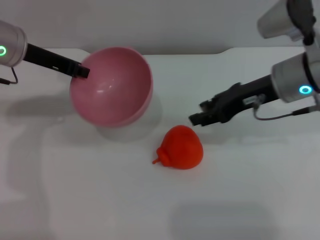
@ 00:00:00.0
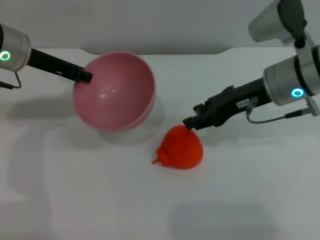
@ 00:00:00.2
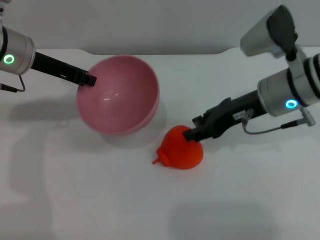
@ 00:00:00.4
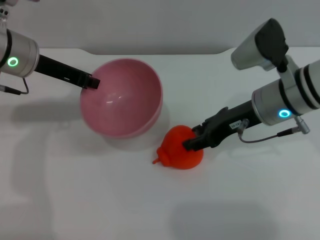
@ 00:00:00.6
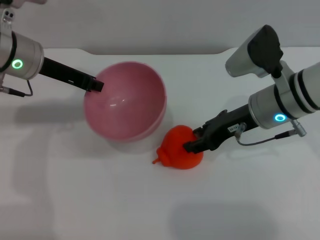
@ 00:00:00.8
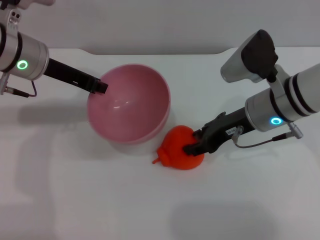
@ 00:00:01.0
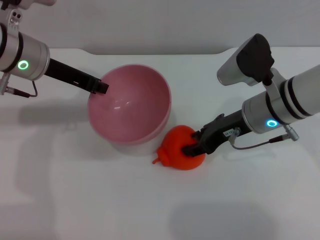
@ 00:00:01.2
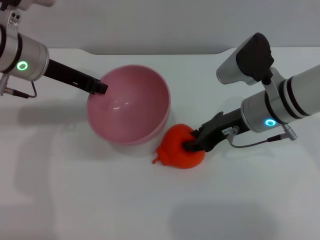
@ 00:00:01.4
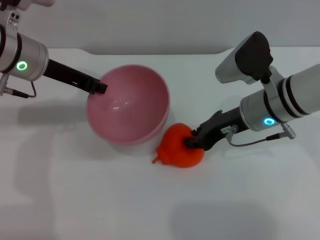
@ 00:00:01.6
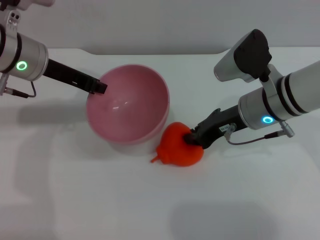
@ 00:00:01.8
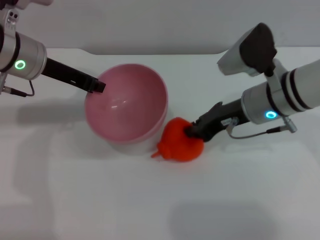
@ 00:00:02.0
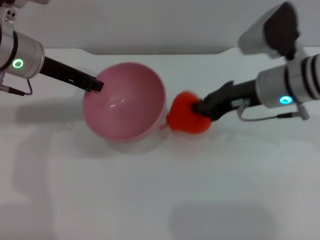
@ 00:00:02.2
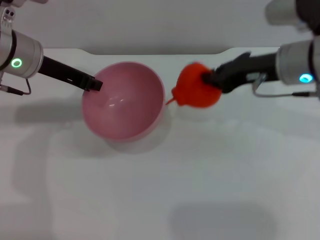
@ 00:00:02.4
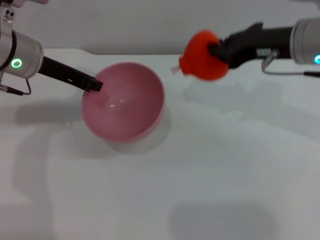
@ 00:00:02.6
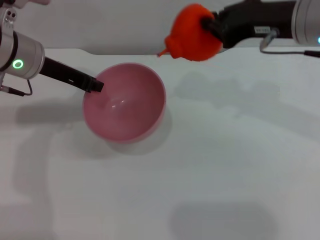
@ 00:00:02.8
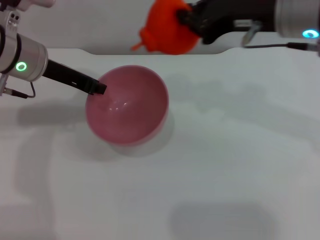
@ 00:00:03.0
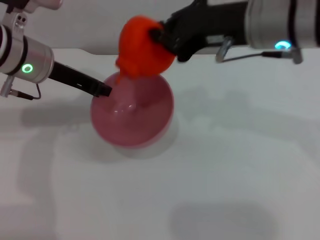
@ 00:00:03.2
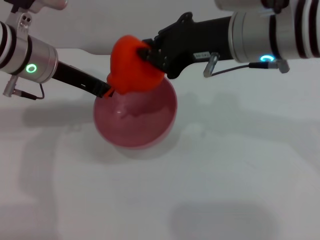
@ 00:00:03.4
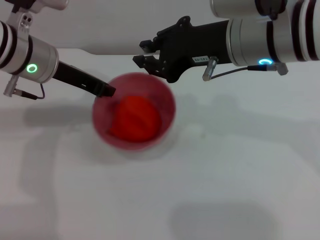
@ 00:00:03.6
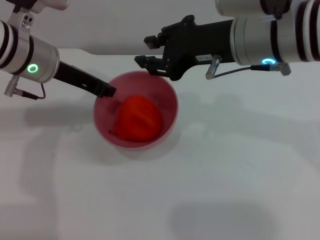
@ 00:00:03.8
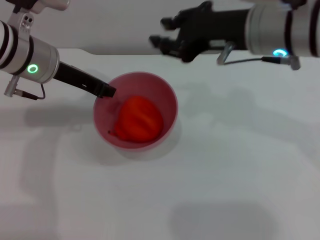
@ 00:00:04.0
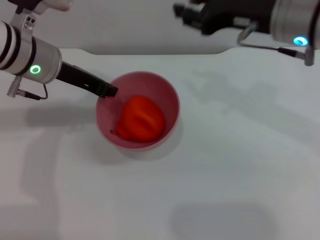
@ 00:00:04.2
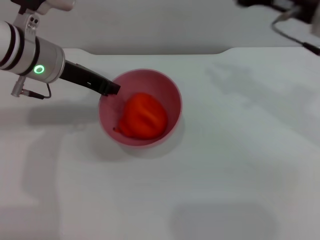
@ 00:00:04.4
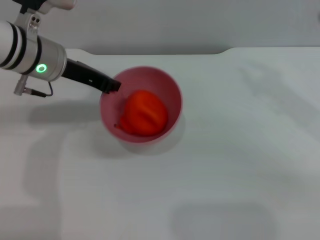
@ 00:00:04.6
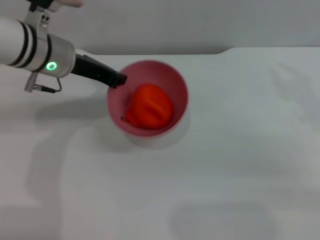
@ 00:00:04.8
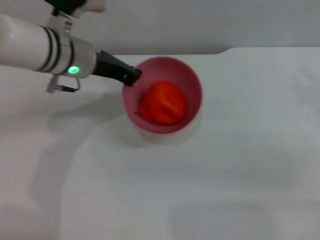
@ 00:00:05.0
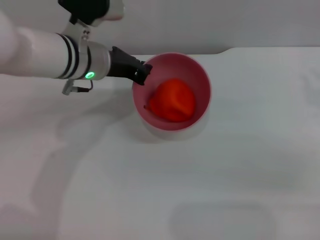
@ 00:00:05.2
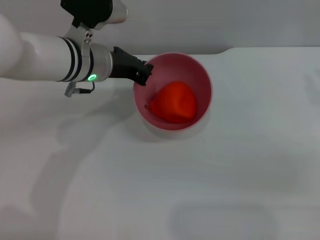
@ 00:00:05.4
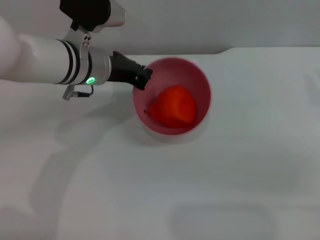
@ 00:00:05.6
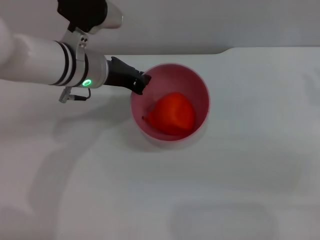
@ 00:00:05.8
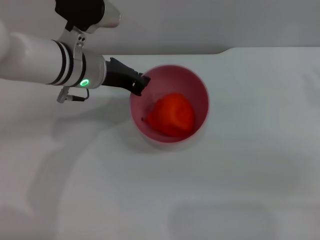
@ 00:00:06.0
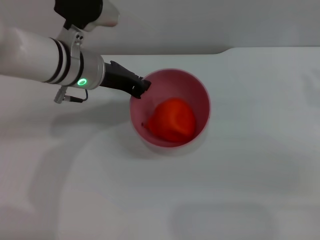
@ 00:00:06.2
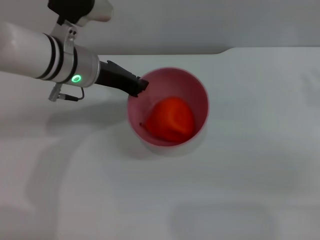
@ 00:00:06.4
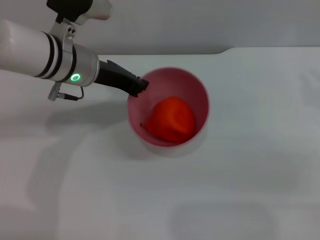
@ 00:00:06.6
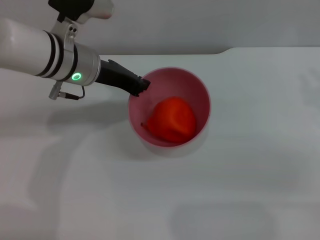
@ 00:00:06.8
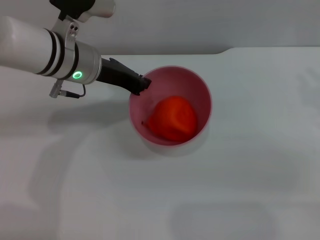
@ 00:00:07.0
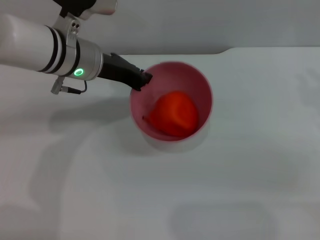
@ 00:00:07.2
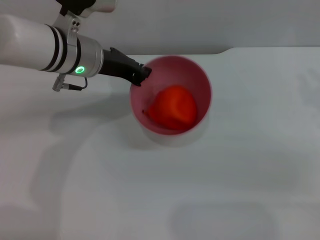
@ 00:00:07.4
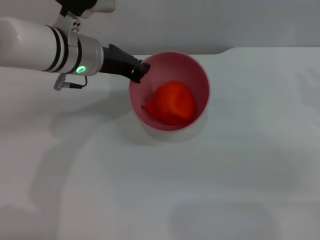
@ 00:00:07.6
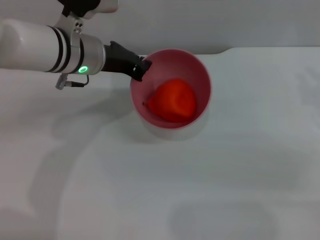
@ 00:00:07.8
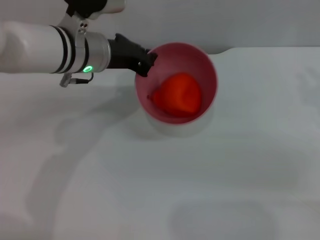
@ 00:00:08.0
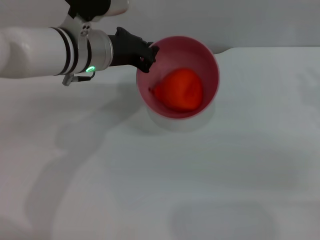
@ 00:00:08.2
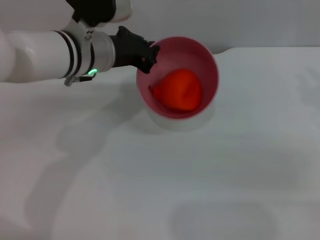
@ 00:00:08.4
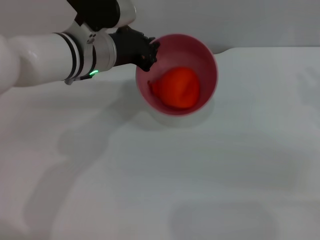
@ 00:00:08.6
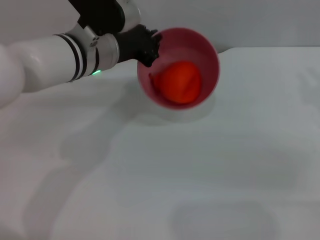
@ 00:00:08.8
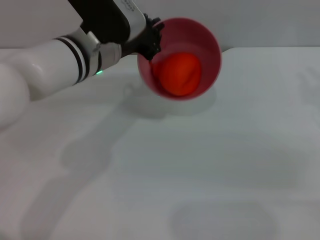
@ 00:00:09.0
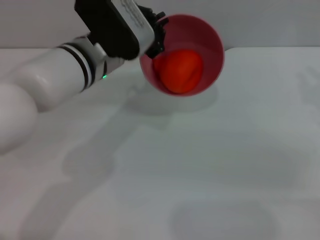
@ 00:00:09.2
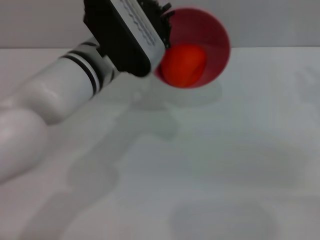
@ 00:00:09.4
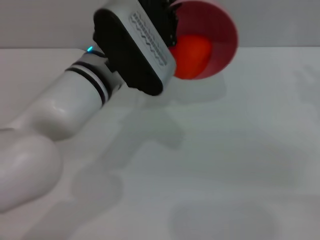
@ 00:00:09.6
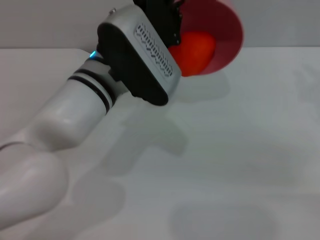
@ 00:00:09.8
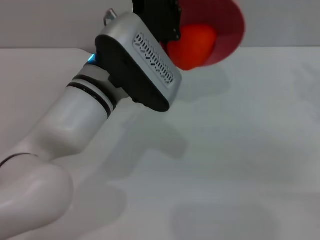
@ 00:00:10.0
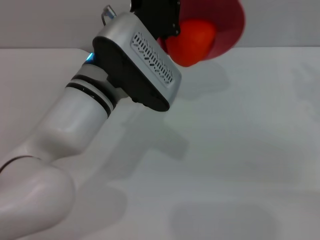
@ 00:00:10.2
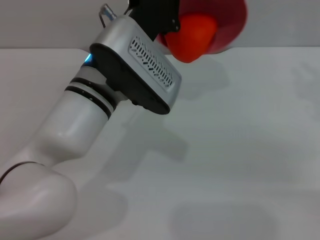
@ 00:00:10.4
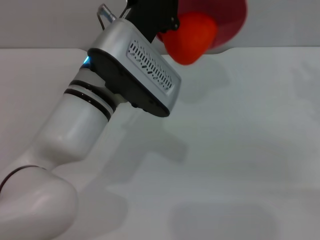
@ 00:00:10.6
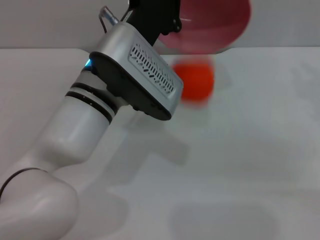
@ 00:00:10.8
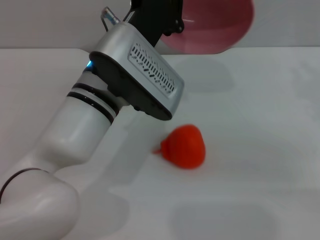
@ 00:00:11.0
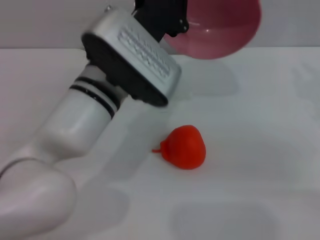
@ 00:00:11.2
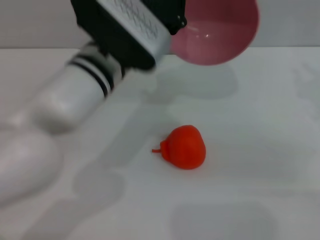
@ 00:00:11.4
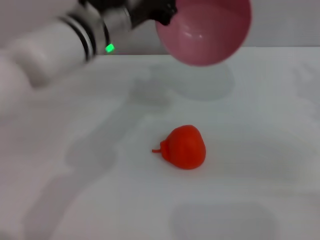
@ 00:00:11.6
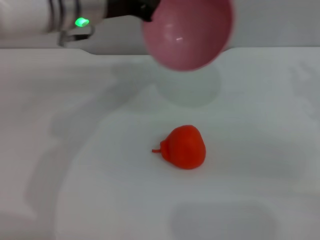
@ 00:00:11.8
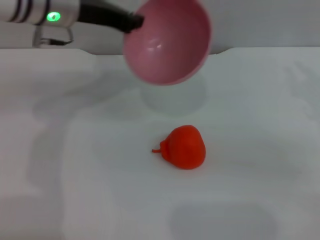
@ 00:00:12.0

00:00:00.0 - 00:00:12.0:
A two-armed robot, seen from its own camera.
Task of the whole recording: put the orange into the pink bowl and pour it out repeatedly.
Step, 00:00:00.0 - 00:00:02.4: Pick up the orange with the right gripper.
Step, 00:00:02.6 - 00:00:04.0: Place the orange into the bowl.
Step, 00:00:04.2 - 00:00:10.8: Pour the orange out of the bowl.
00:00:00.0 - 00:00:01.6: The right gripper moves downward, roughly 5 cm.
00:00:01.6 - 00:00:03.0: The right gripper travels upward by some 15 cm, and closes its fingers.
00:00:03.0 - 00:00:04.4: The right gripper shifts approximately 5 cm to the right, and opens its fingers.
00:00:04.4 - 00:00:06.0: The right gripper is displaced to the right, downward and backward by roughly 15 cm. The left gripper travels to the right by roughly 5 cm.
00:00:06.0 - 00:00:07.6: The grippers make only small movements.
00:00:09.0 - 00:00:10.4: The left gripper moves backward, some 5 cm.
00:00:10.4 - 00:00:12.0: The left gripper travels forward, to the left and upward by about 15 cm.

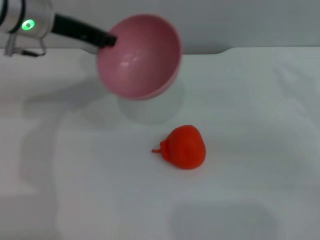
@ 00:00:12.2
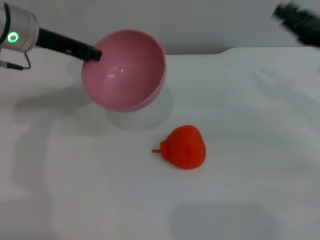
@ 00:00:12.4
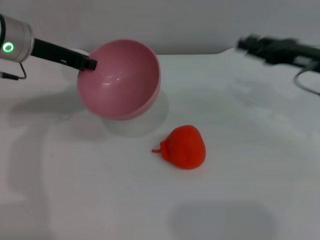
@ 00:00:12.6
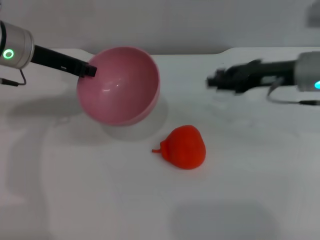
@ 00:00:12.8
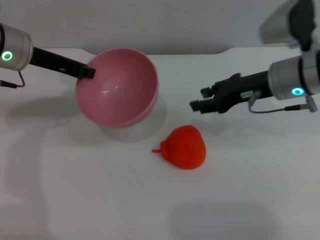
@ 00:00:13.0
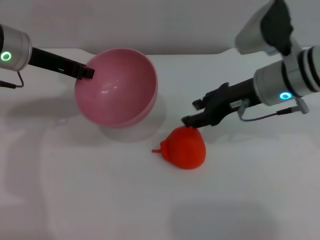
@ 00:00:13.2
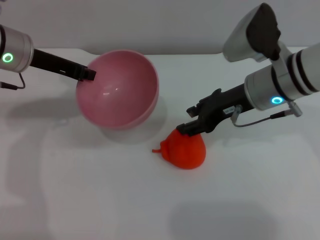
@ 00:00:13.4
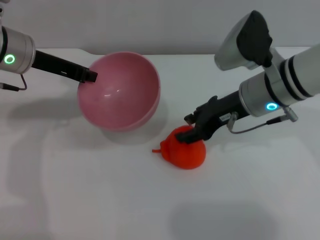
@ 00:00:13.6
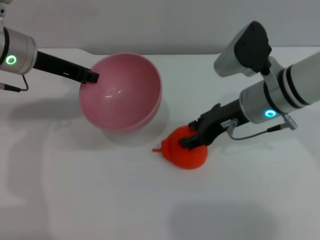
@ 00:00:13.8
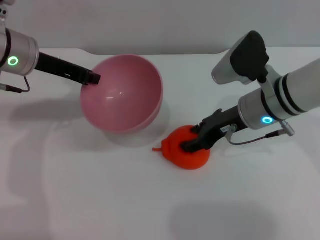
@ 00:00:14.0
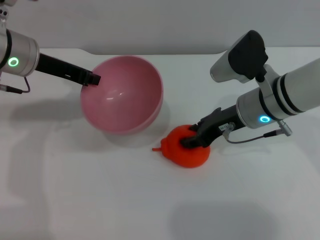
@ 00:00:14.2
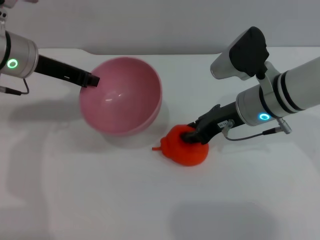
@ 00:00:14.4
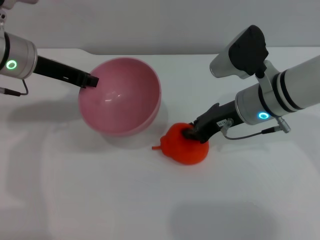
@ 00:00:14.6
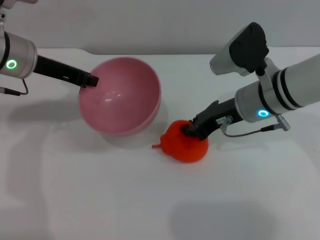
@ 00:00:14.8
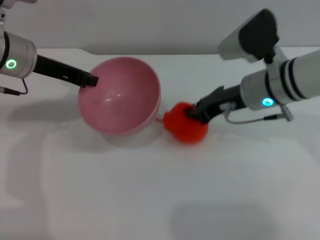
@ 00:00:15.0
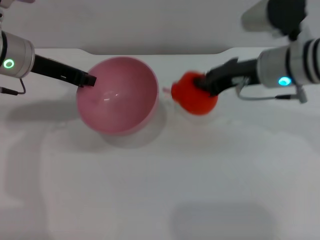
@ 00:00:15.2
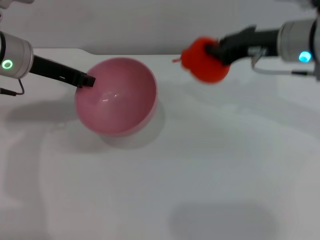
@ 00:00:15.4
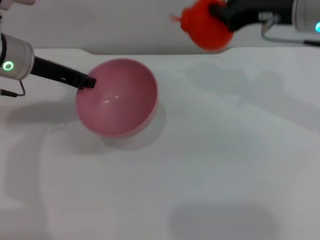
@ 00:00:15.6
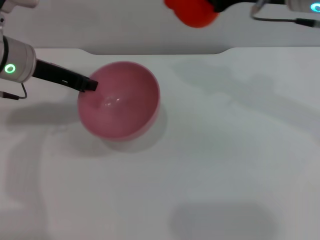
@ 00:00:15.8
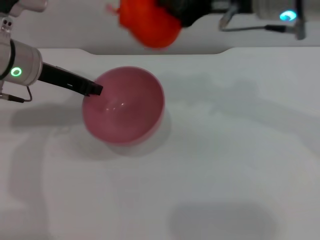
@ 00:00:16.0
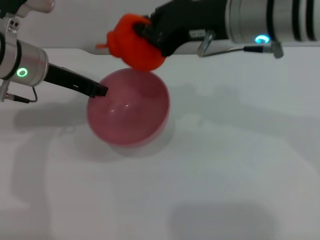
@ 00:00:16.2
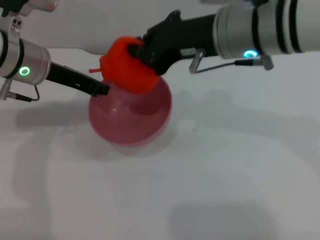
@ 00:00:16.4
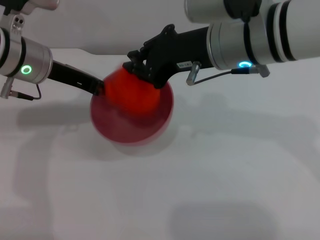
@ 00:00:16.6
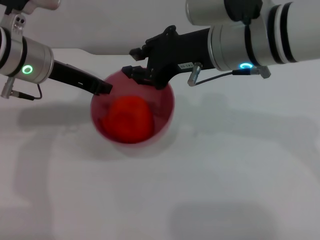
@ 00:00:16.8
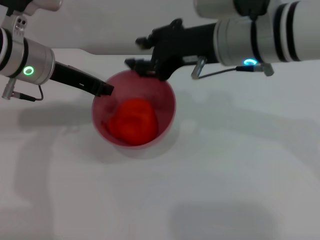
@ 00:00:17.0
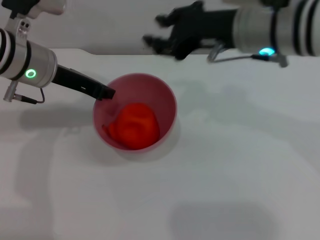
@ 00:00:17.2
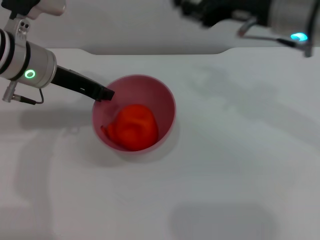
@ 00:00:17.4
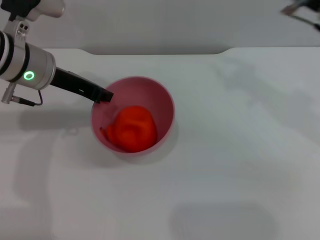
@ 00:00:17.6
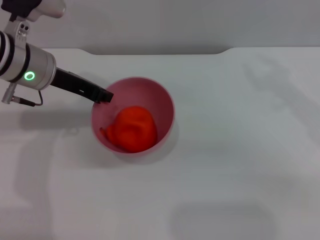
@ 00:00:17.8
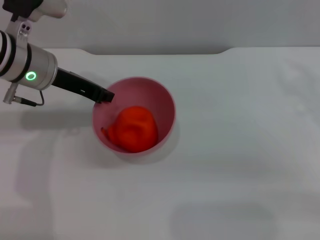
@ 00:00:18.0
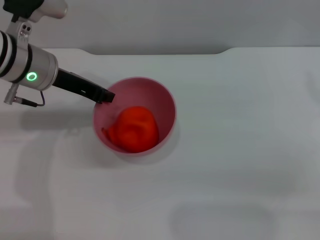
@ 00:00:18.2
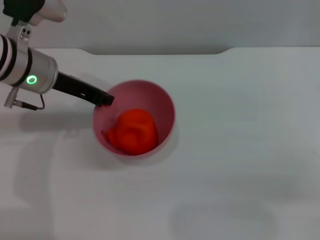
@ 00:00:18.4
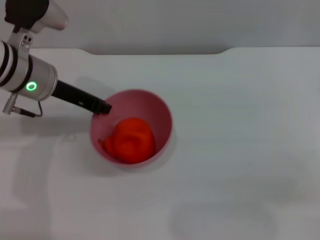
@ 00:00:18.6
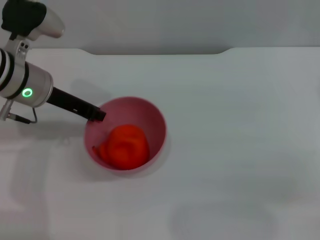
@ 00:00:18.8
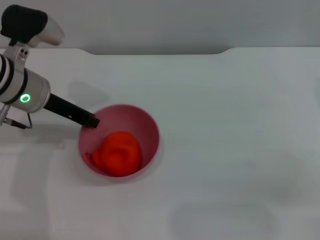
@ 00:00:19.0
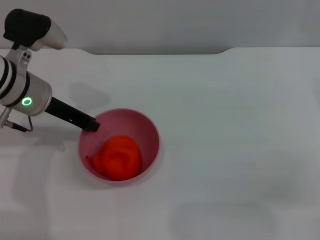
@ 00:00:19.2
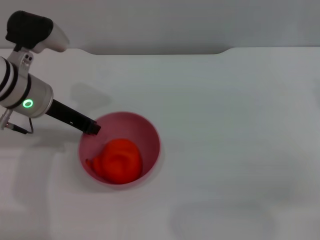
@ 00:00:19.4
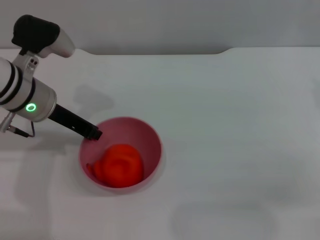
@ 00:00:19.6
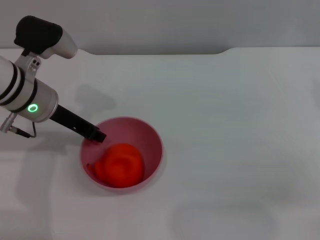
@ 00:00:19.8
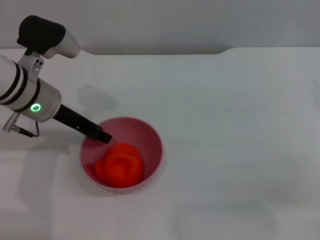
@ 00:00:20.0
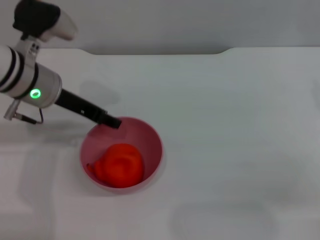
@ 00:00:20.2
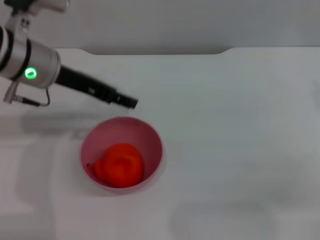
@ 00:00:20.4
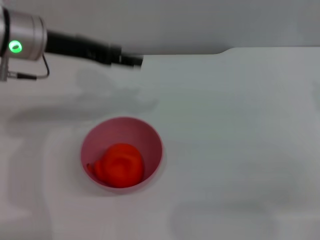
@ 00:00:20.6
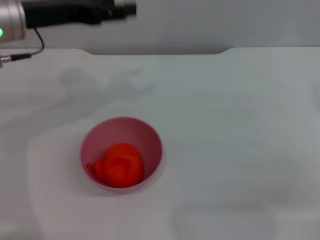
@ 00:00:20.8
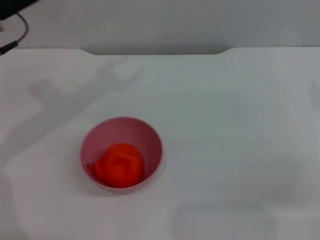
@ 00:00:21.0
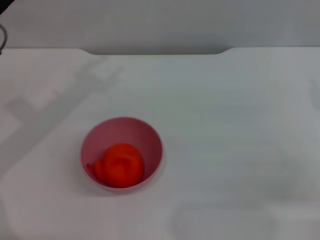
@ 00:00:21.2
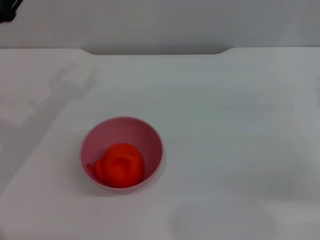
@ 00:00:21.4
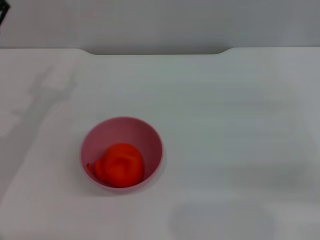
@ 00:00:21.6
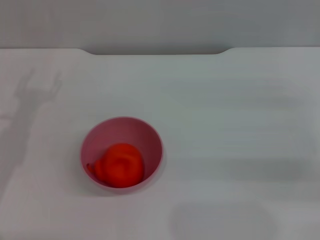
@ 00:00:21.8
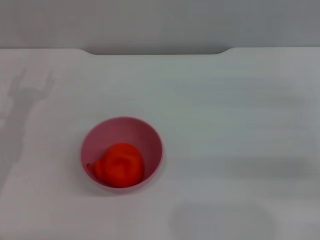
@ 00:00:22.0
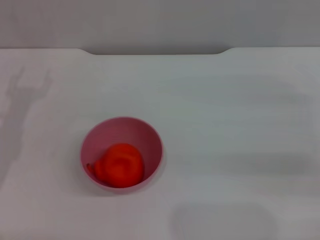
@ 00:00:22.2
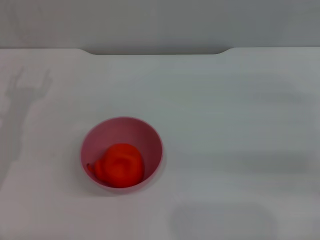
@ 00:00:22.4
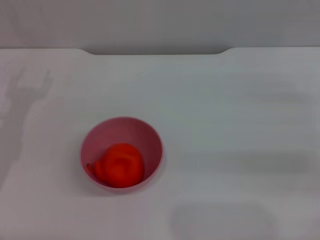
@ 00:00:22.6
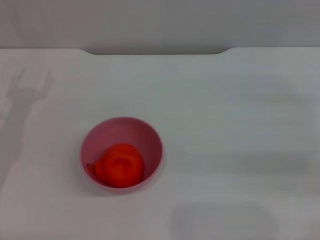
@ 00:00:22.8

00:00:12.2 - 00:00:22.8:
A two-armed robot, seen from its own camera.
Task of the whole recording: put the orange into the pink bowl and pour it out repeatedly.
Step, 00:00:12.2 - 00:00:15.4: Pick up the orange with the right gripper.
Step, 00:00:15.6 - 00:00:17.4: Place the orange into the bowl.
Step, 00:00:17.6 - 00:00:20.4: Place the bowl on the table.
00:00:12.2 - 00:00:13.8: The right gripper moves to the left, about 15 cm.
00:00:13.8 - 00:00:15.2: The right gripper closes its fingers.
00:00:15.2 - 00:00:16.8: The right gripper goes some 10 cm to the left and upward.
00:00:16.8 - 00:00:18.2: The right gripper moves to the right, about 25 cm, and opens up.
00:00:19.8 - 00:00:21.2: The left gripper travels to the left by approximately 5 cm, and opens.
